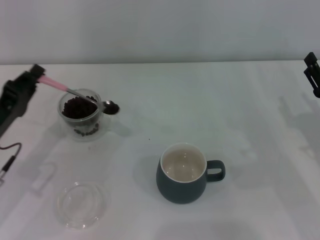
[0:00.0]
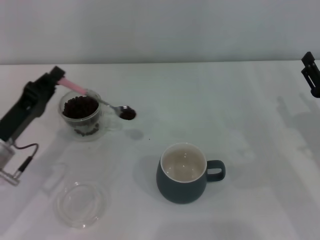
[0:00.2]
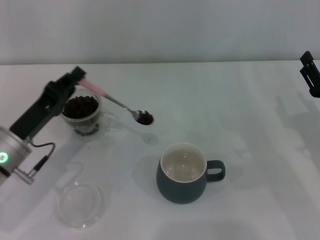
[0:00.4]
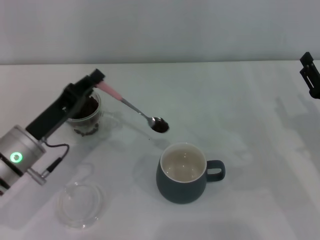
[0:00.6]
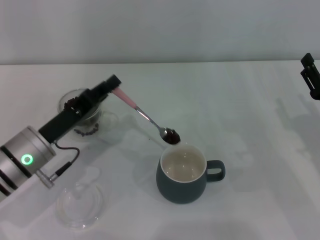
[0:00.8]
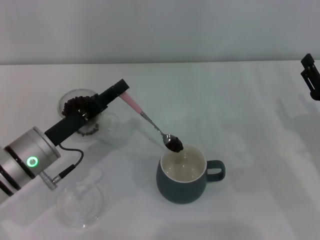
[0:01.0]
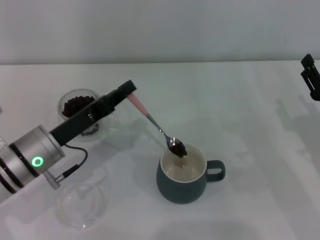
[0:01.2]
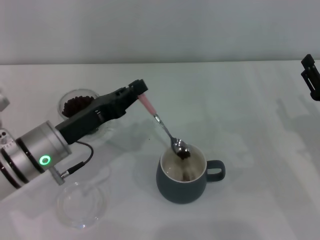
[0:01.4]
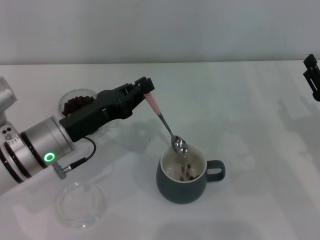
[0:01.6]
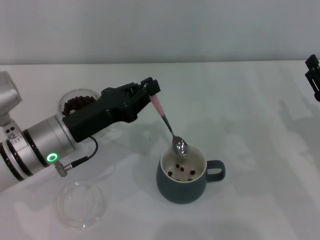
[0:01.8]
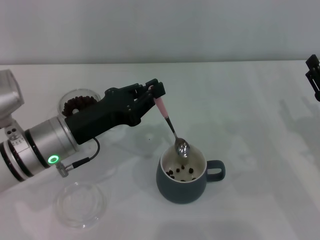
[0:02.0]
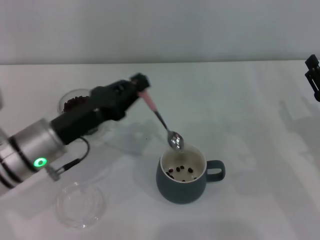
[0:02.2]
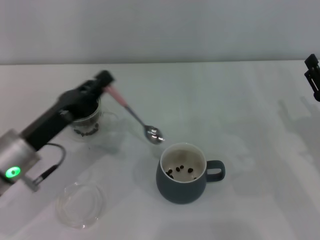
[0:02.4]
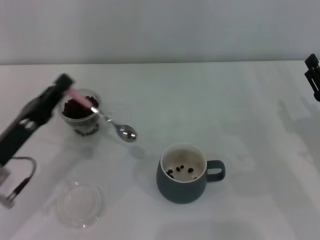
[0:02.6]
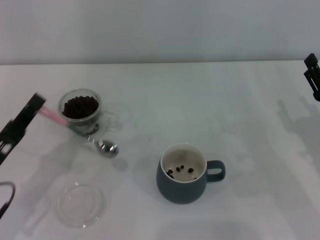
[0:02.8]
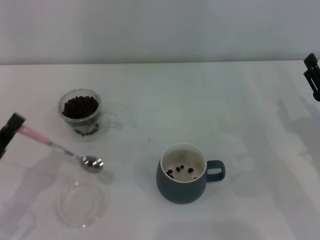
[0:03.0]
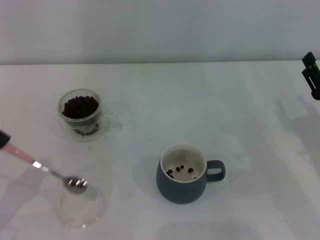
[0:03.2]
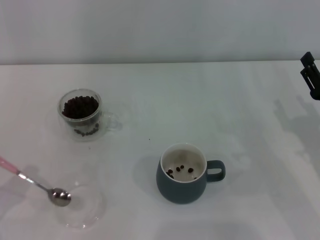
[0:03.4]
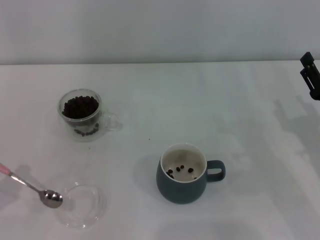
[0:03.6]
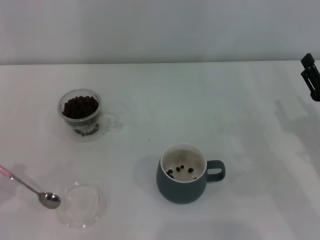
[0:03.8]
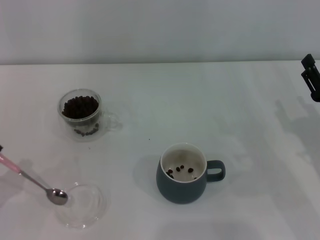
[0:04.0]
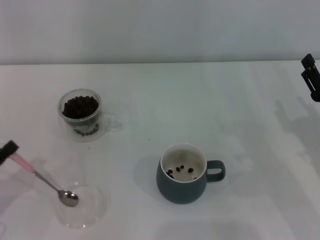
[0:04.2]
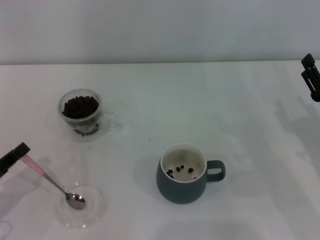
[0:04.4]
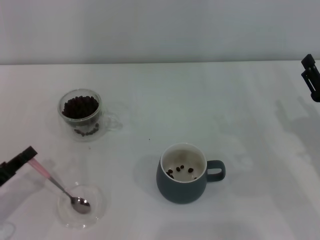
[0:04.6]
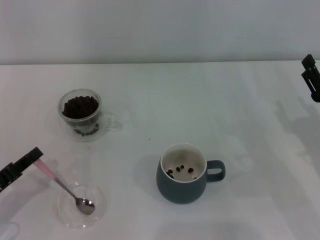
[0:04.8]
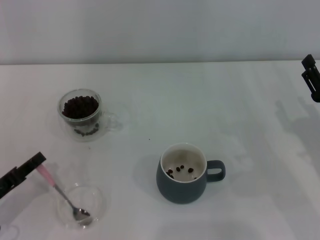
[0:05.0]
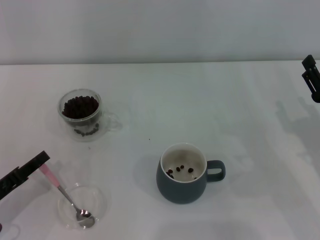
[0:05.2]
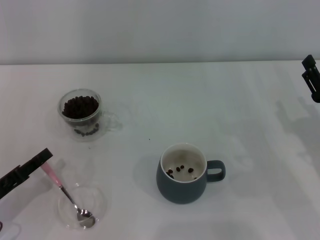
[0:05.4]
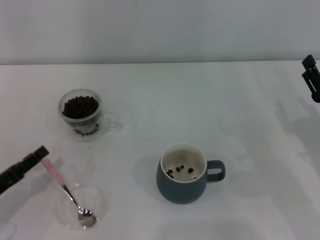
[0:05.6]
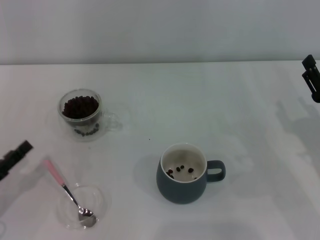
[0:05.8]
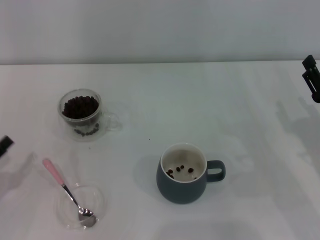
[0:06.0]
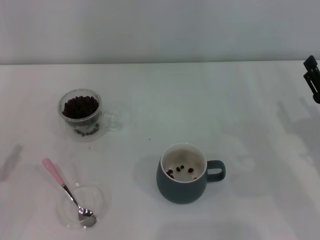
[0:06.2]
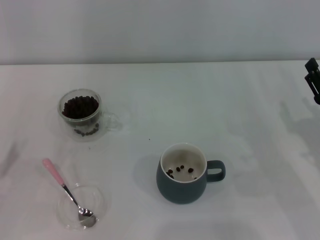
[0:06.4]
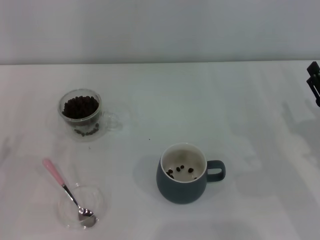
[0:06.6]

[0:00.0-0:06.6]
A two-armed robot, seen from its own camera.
Task of the whole recording: Use a pink spoon to take out the coffee beans from the glass and pour them into the gray cup.
0:00.0 to 0:01.6: The left gripper goes approximately 10 cm to the right.
0:01.6 to 0:03.2: The left gripper heads to the left and backward, covering roughly 20 cm.
0:05.0 to 0:06.6: The left gripper opens.

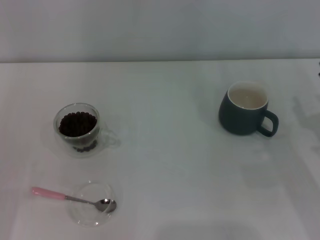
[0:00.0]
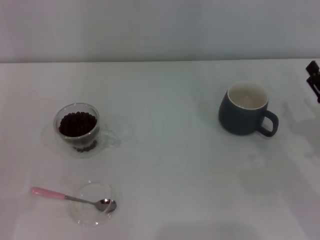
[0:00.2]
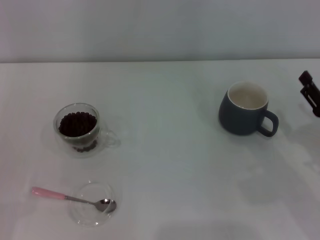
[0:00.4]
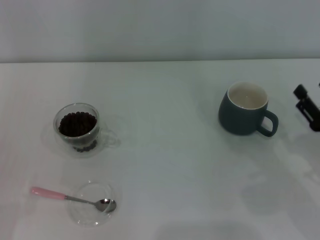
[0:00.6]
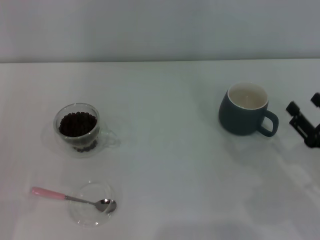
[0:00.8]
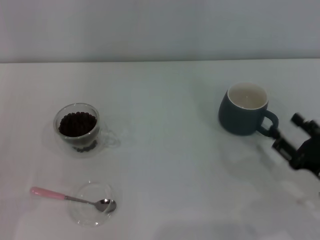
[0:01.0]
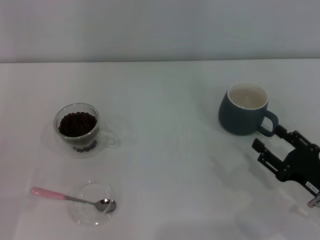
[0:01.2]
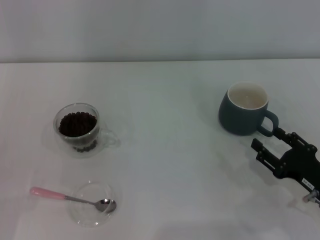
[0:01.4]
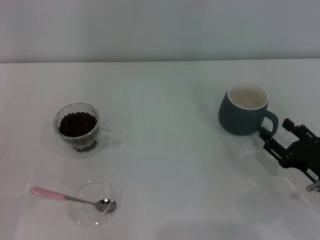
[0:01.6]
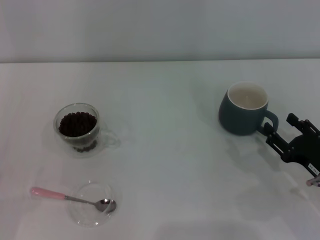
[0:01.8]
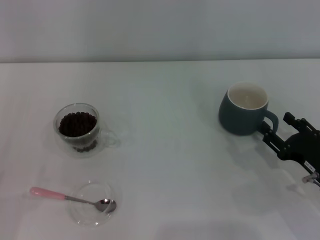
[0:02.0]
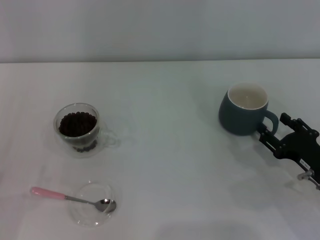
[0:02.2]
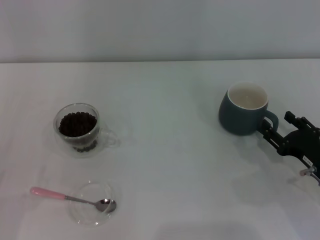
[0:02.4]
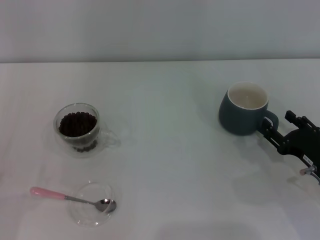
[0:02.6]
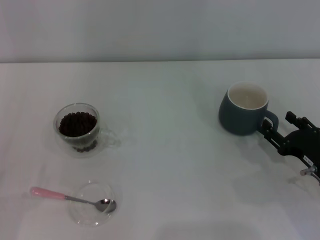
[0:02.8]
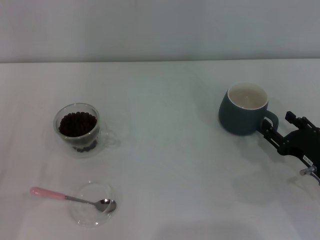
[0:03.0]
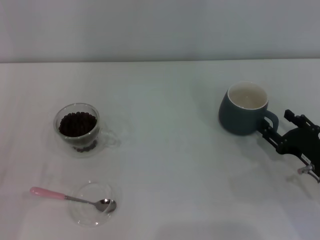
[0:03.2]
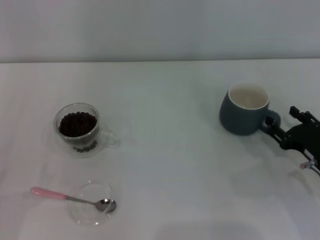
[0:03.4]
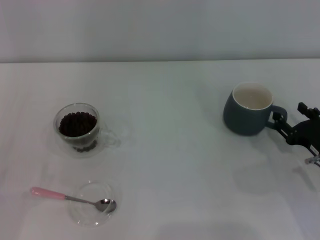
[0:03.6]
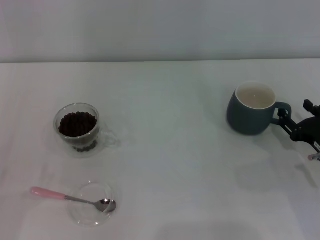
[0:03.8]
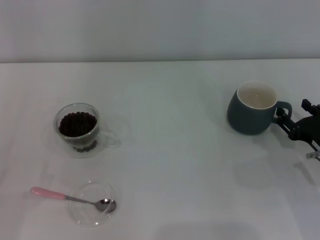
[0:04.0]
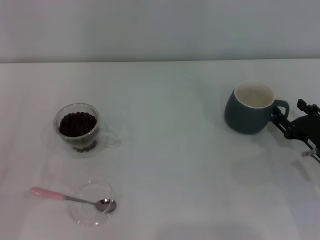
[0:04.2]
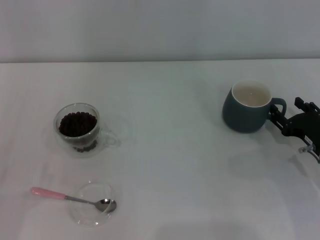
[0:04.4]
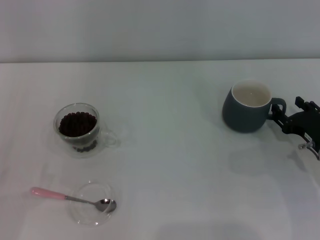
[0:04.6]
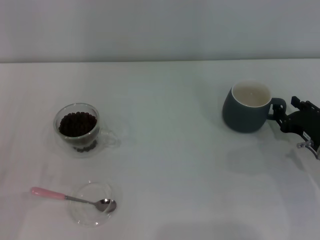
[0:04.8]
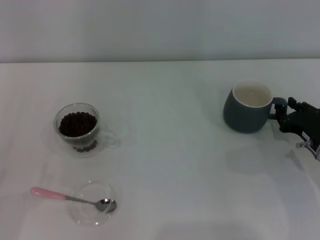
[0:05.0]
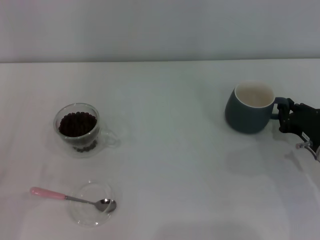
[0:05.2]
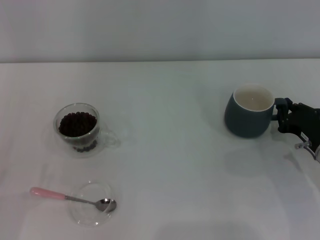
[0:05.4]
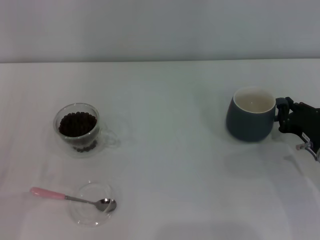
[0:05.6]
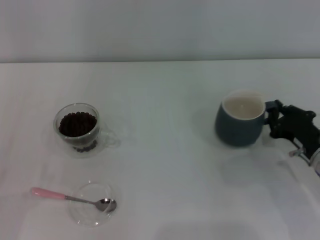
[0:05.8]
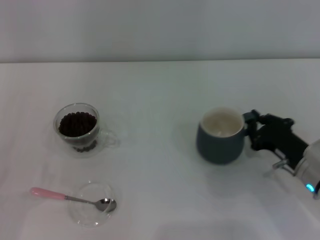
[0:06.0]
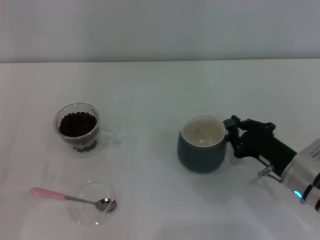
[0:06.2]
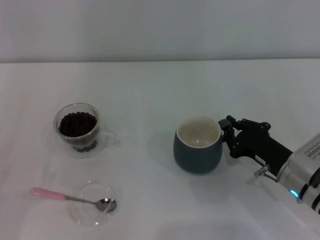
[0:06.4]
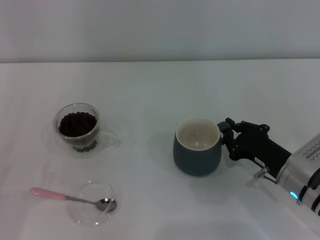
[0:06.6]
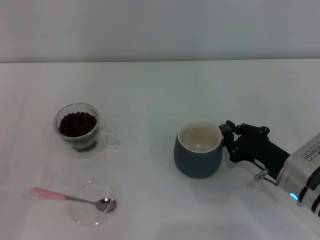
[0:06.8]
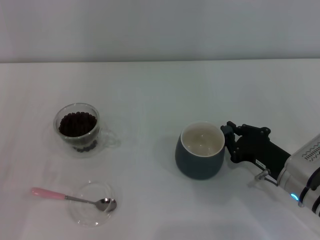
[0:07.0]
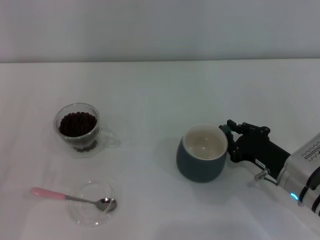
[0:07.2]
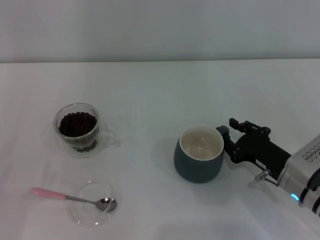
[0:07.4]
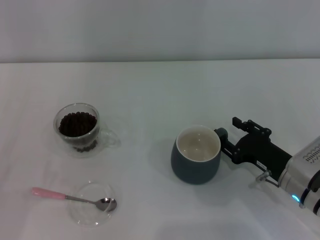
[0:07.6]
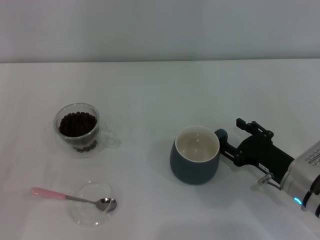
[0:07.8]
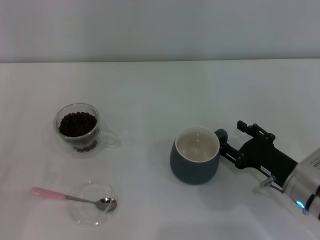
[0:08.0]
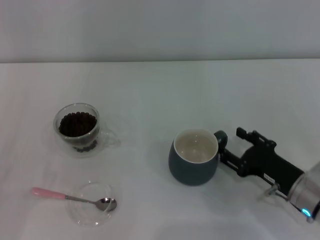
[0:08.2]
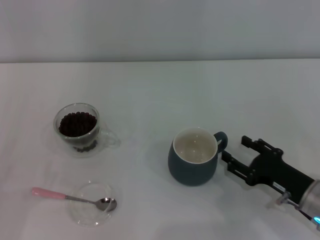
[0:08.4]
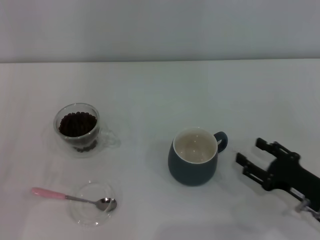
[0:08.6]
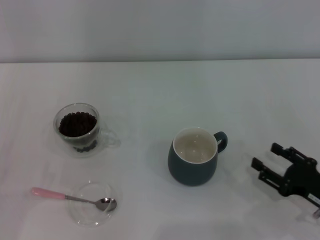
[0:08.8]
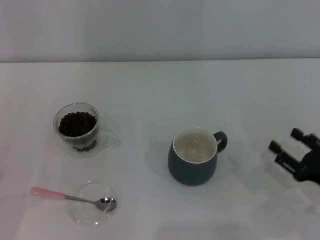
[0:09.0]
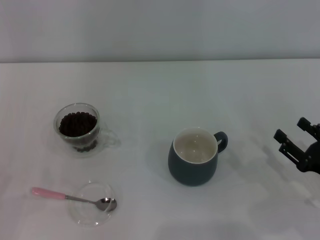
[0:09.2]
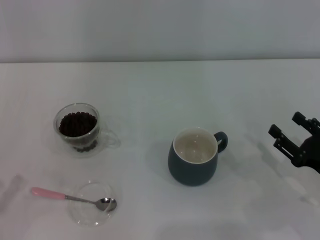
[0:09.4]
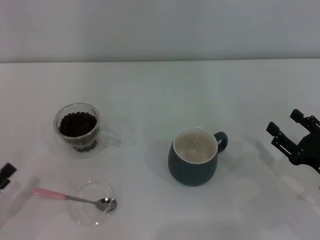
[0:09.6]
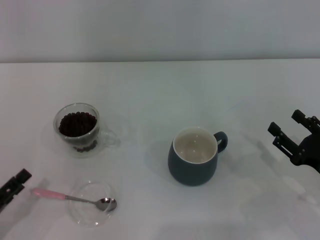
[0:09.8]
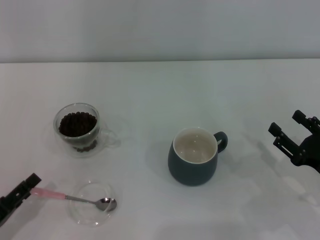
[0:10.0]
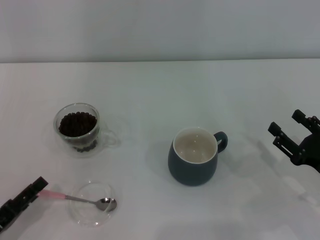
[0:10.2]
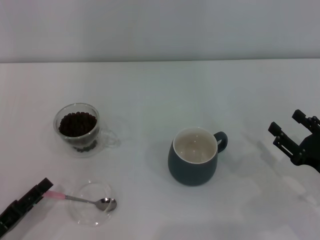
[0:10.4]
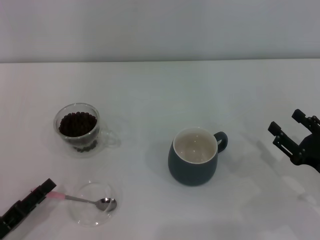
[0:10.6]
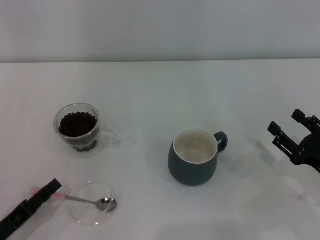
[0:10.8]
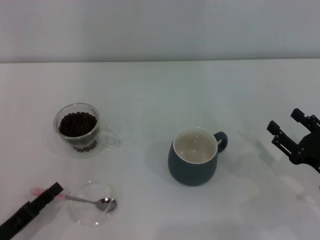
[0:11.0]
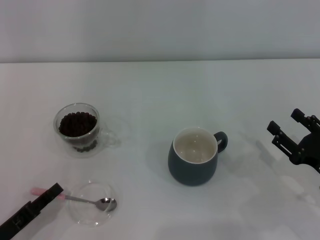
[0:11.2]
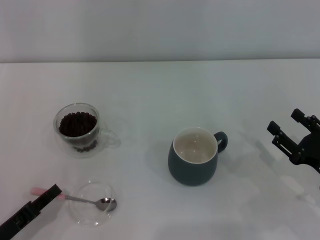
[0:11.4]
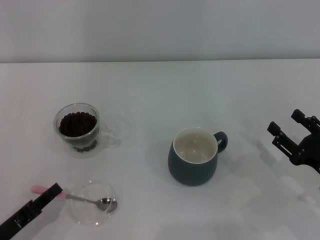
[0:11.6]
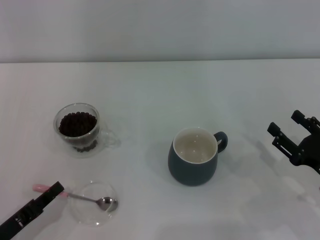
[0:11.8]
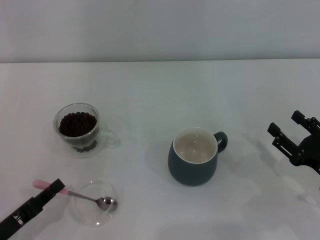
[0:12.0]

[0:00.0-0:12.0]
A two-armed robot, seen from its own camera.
Task of the whole recording: Use a pink spoon to take out the coffee beans from the glass and pour them into the gray cup.
Step, 0:00.0 to 0:08.6: Move the cup to the center of view with the left gripper.
0:00.0 to 0:01.6: The right gripper moves backward, roughly 5 cm.
0:01.6 to 0:03.0: The grippers make only small movements.
0:03.0 to 0:04.4: The grippers move only a little.
0:04.4 to 0:06.0: The right gripper closes its fingers.
0:06.0 to 0:07.6: The right gripper opens.
0:07.6 to 0:09.0: The right gripper shifts some 10 cm to the right and backward, and opens its fingers.
0:09.0 to 0:10.4: The left gripper shifts by approximately 5 cm.
0:10.4 to 0:12.0: The left gripper closes its fingers.

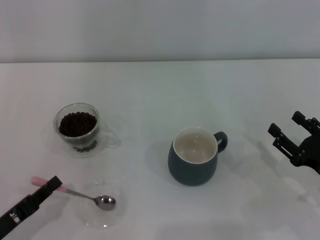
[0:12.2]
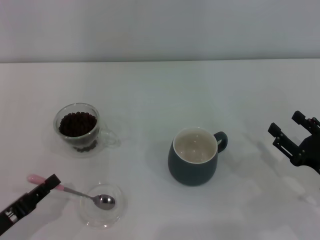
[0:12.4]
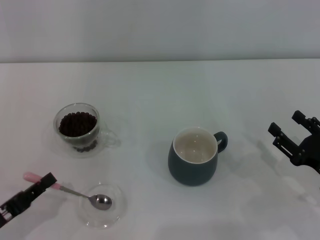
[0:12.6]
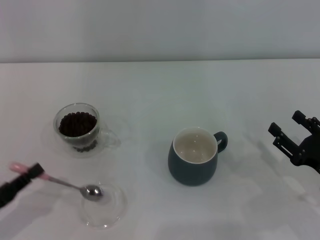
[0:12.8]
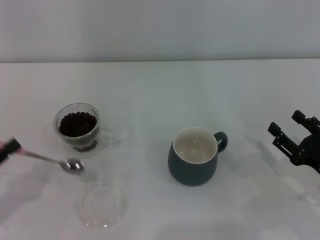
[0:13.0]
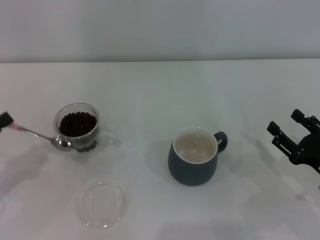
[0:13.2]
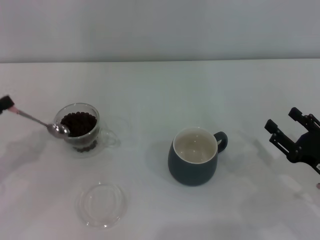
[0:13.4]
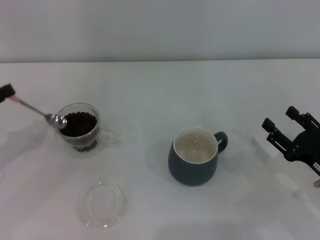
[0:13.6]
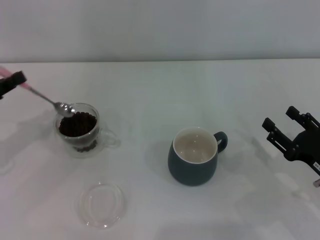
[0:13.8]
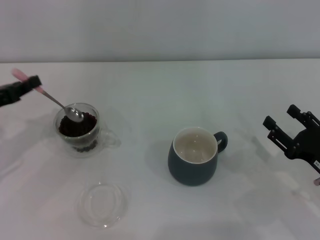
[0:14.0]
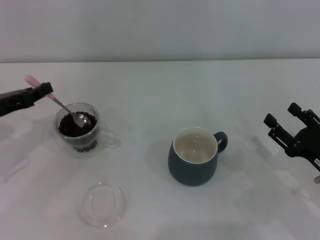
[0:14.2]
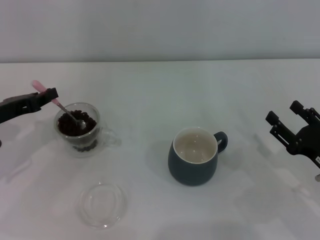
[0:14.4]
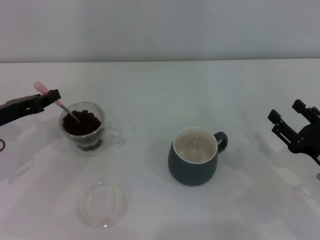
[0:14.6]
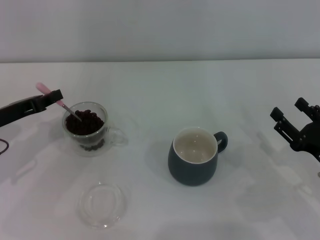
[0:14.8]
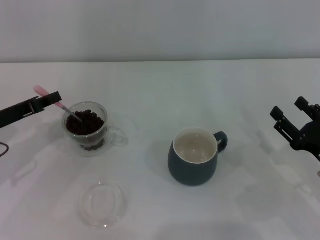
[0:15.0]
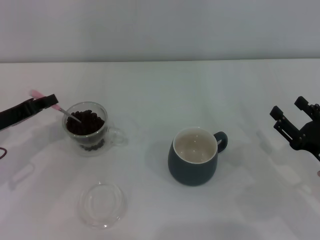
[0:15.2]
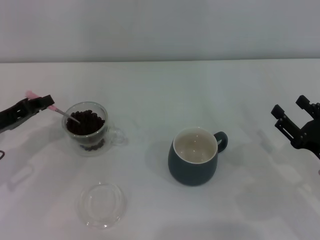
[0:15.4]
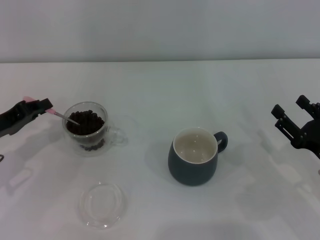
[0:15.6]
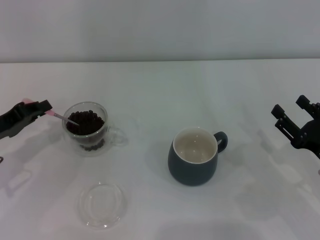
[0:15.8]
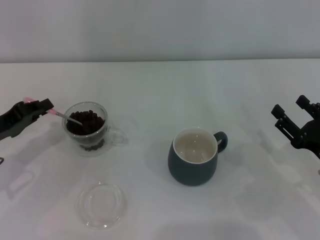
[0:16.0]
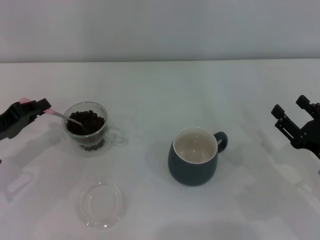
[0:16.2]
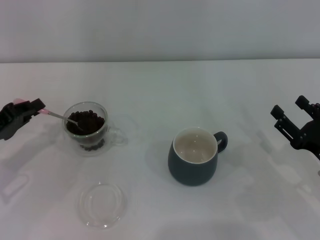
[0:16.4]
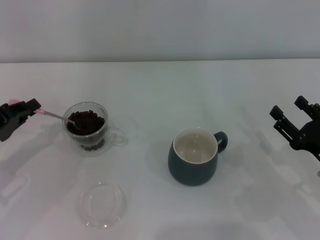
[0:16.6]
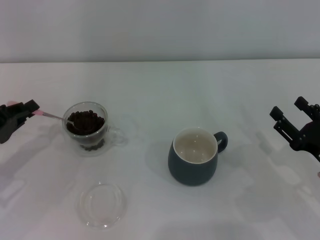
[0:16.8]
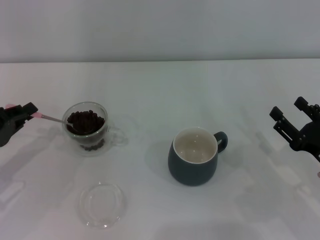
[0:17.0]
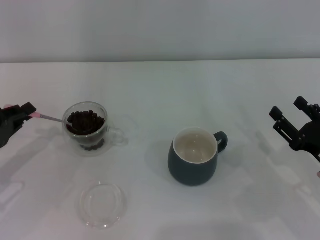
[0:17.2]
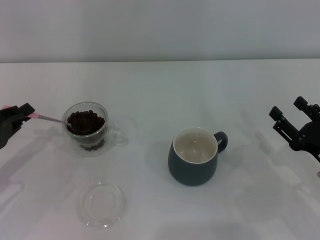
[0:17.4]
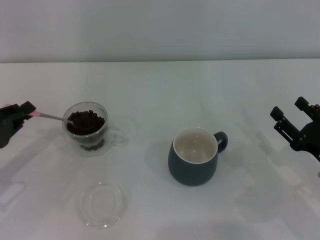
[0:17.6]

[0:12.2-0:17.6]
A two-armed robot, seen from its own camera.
Task of the whole recording: Use a pink spoon to take out the coffee beans from the glass and pour them into the gray cup.
0:12.2 to 0:13.6: The left gripper shifts roughly 15 cm forward, upward and to the left.
0:13.6 to 0:15.0: The left gripper is displaced to the right by about 5 cm.
0:16.2 to 0:17.6: There are only small adjustments of the grippers.
